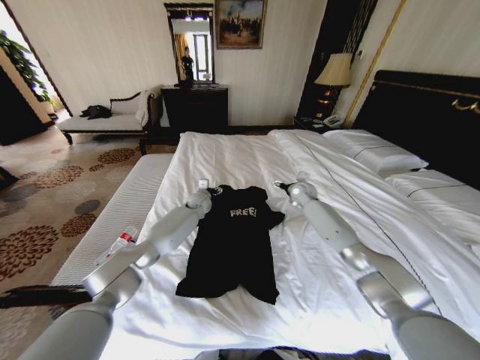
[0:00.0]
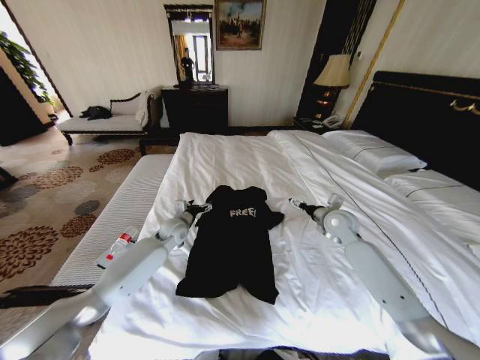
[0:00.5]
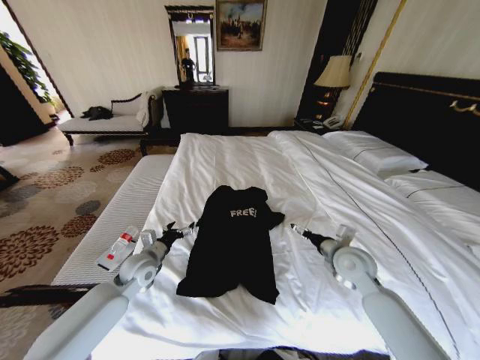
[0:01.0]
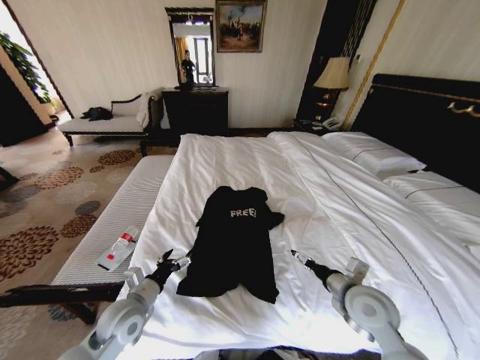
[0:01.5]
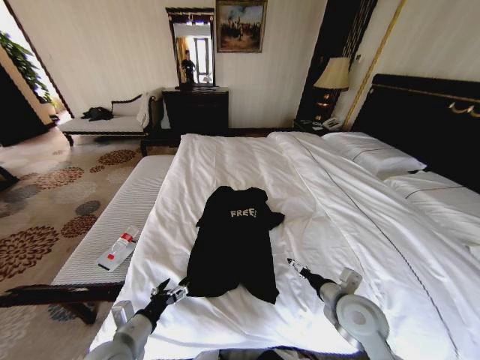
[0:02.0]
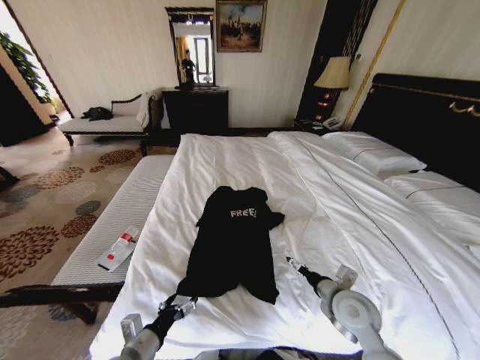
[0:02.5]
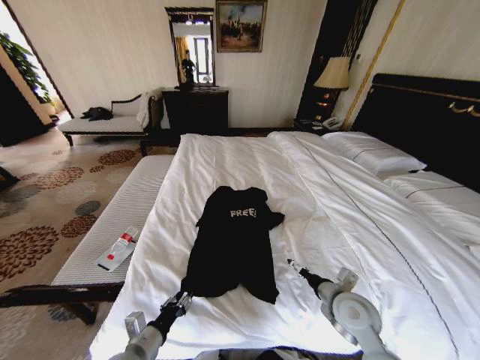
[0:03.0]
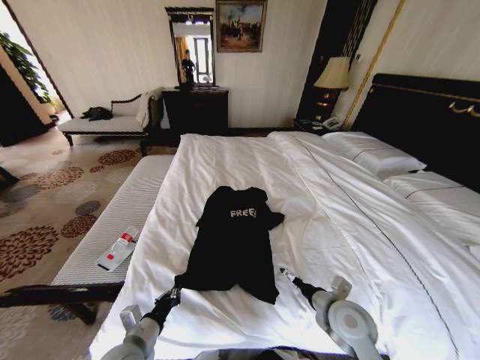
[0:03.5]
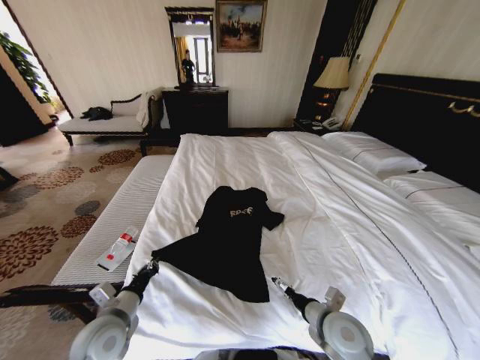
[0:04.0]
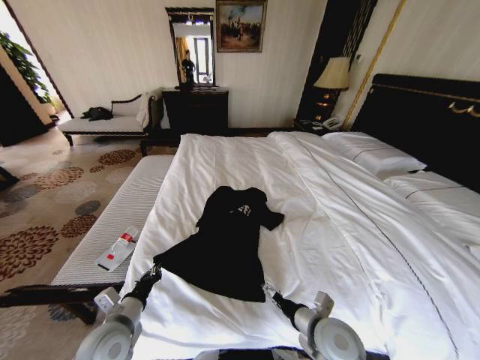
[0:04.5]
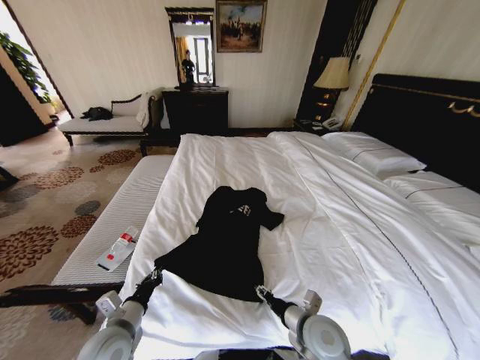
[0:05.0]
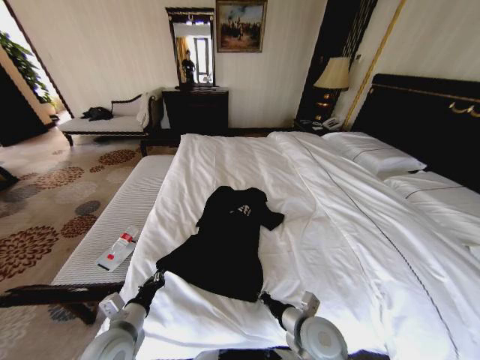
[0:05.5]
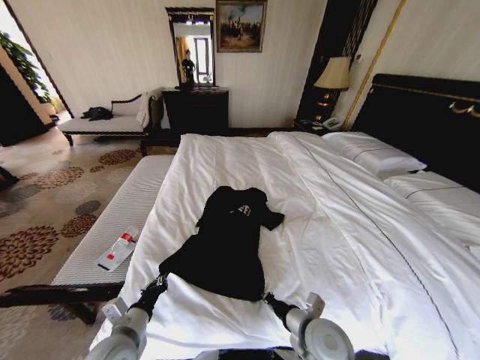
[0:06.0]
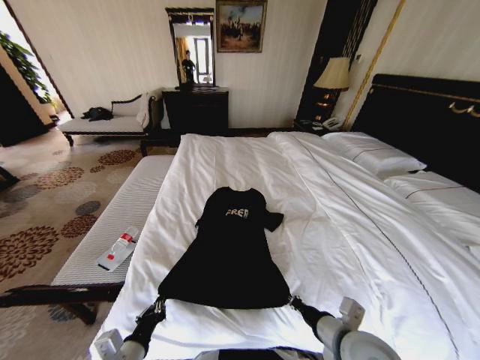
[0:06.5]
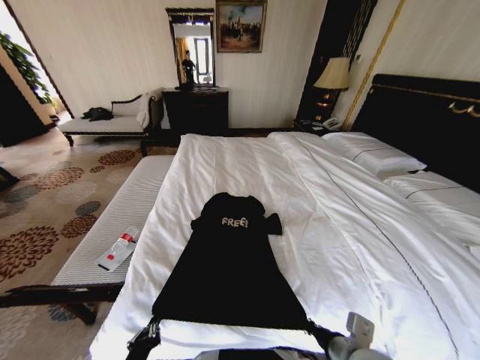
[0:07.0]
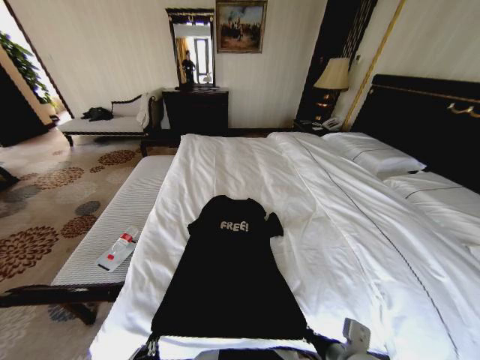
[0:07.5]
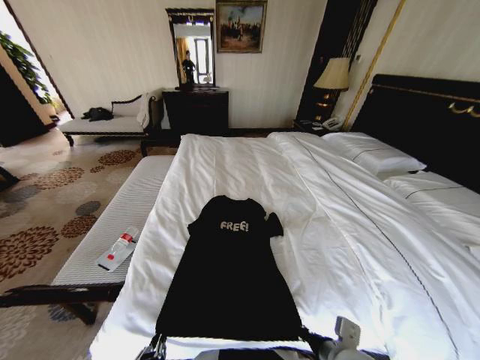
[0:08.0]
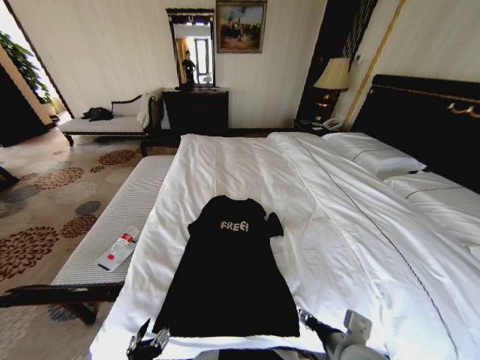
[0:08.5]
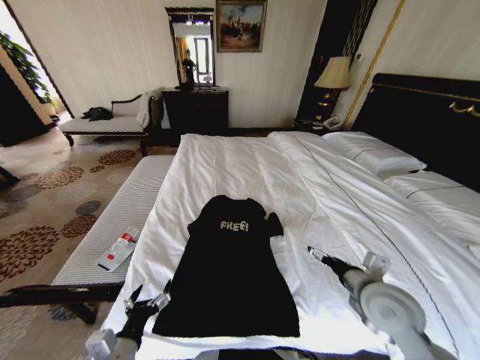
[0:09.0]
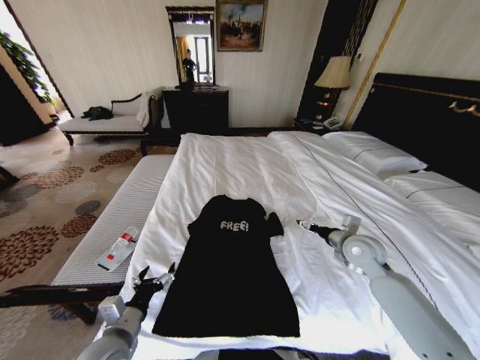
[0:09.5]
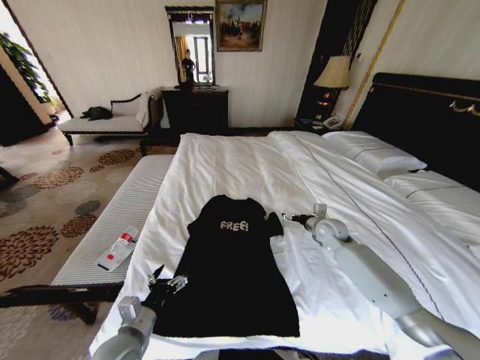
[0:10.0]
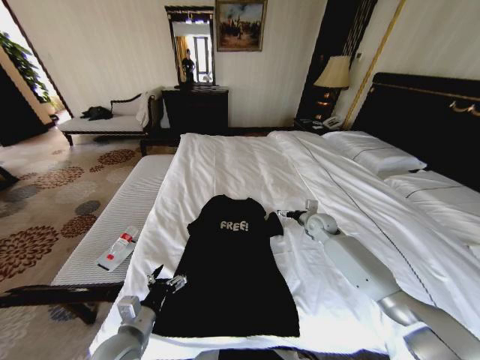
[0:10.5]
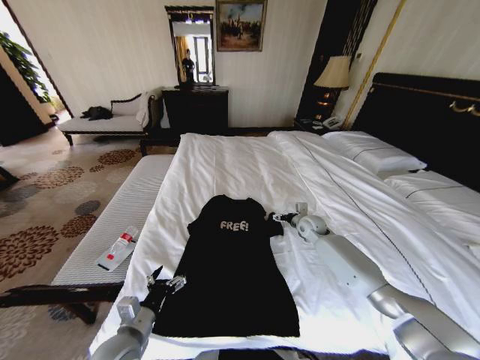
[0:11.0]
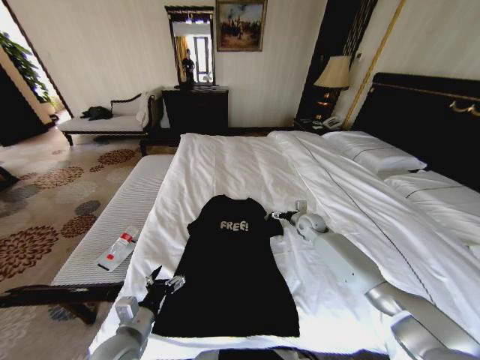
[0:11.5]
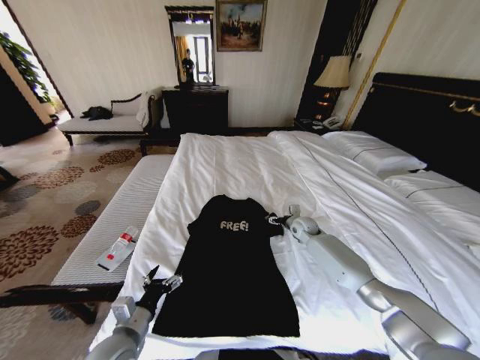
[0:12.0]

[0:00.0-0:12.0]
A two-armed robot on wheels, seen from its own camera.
Task of the whole recording: Fold the clothes on the bed.
0:00.0 to 0:02.0: Both grippers travel together backward, about 40 cm.
0:02.0 to 0:04.0: The right gripper ends up approximately 5 cm from where it was. Meanwhile the left gripper moves roughly 5 cm, and closes its fingers.
0:04.0 to 0:06.0: The right gripper changes place by approximately 5 cm, and closes.
0:06.0 to 0:08.0: The right gripper heads backward, covering approximately 5 cm. The left gripper moves backward, about 15 cm.
0:08.0 to 0:10.0: The right gripper travels forward by some 35 cm, and opens its fingers. Meanwhile the left gripper moves forward, approximately 15 cm, and opens up.
0:10.0 to 0:12.0: The right gripper shifts about 10 cm downward and forward.

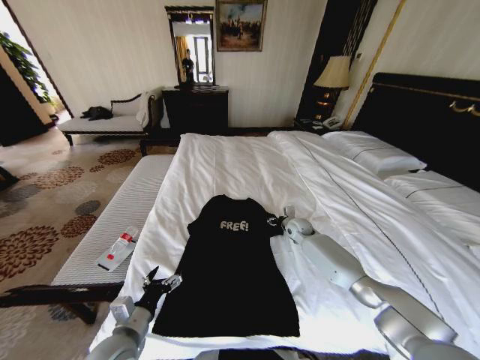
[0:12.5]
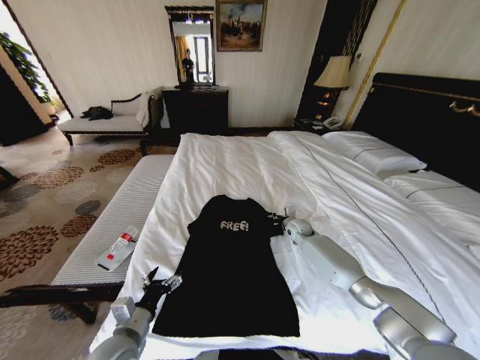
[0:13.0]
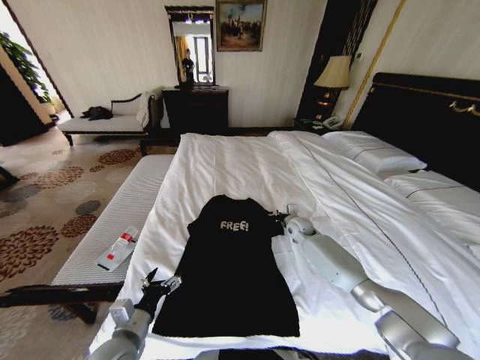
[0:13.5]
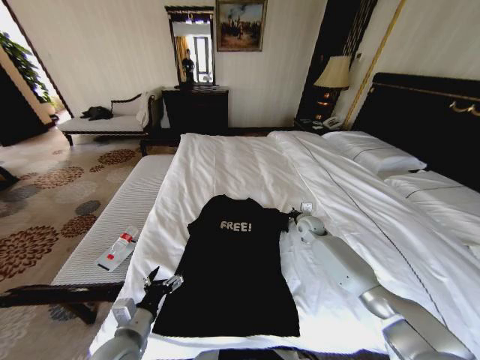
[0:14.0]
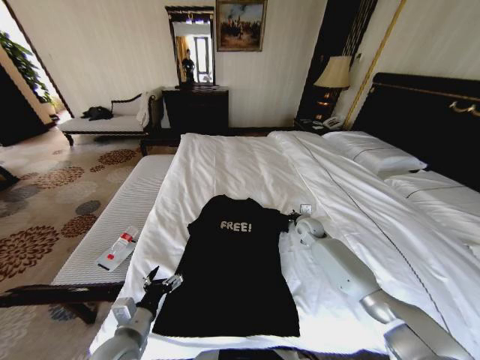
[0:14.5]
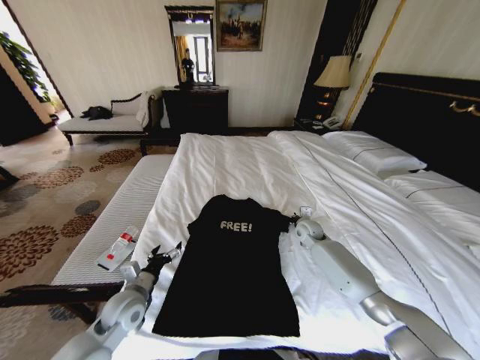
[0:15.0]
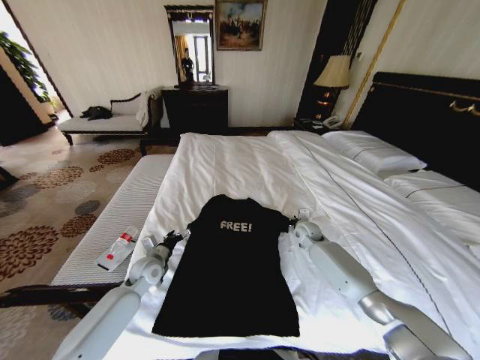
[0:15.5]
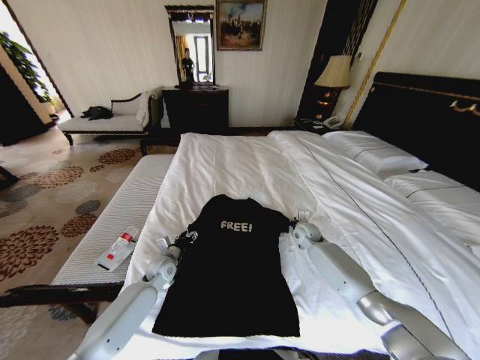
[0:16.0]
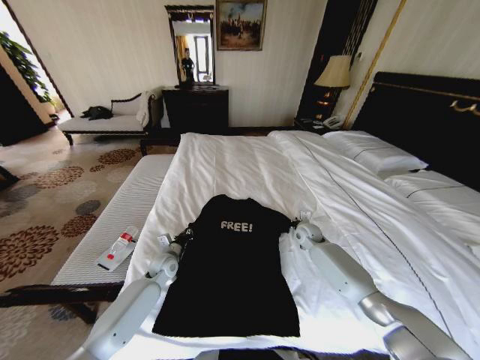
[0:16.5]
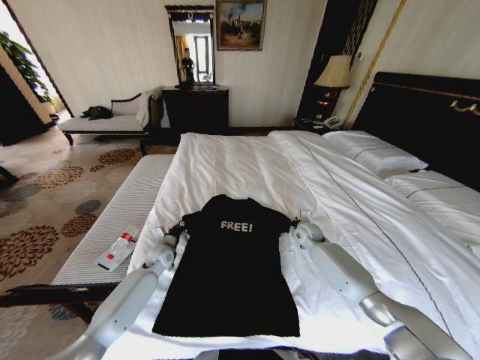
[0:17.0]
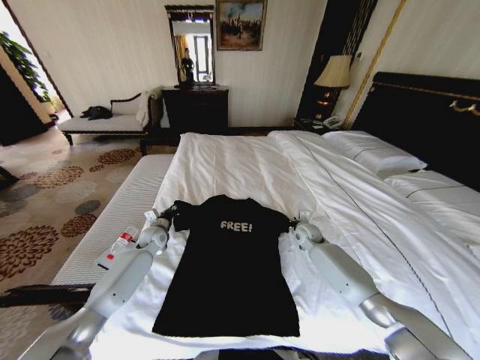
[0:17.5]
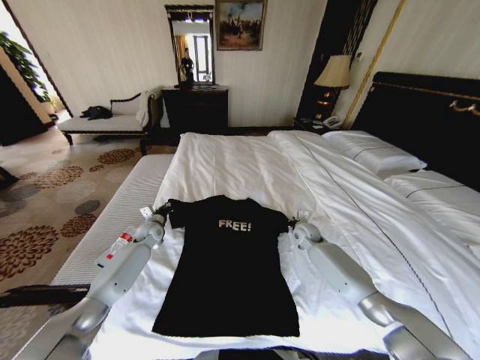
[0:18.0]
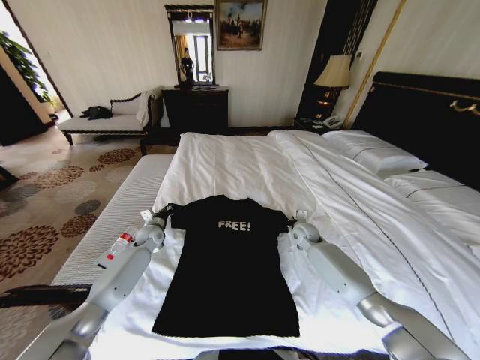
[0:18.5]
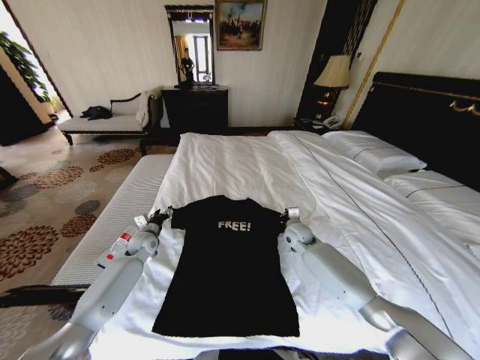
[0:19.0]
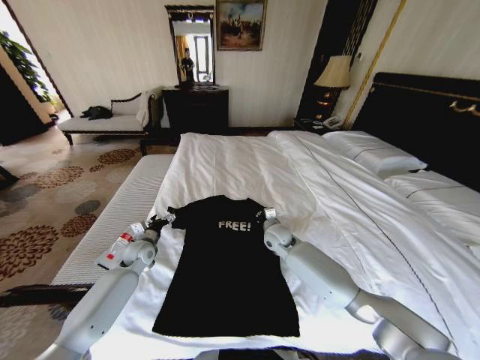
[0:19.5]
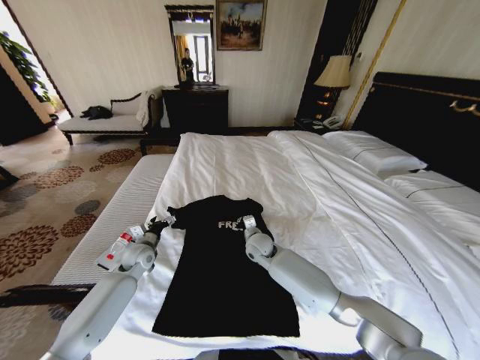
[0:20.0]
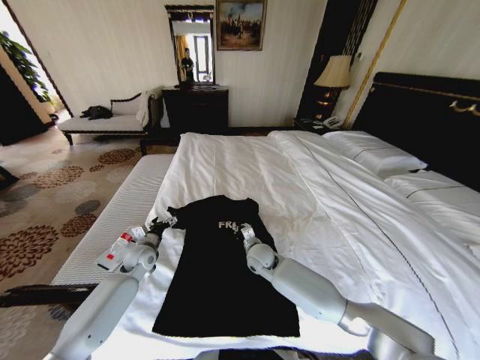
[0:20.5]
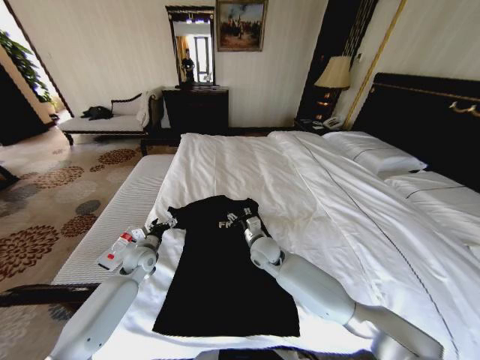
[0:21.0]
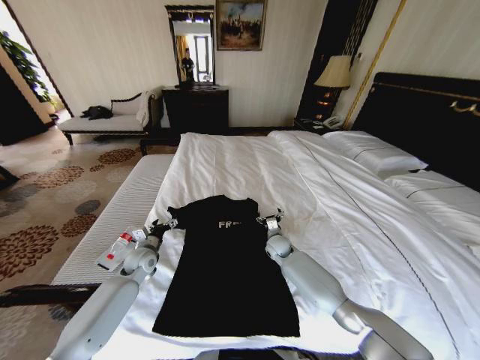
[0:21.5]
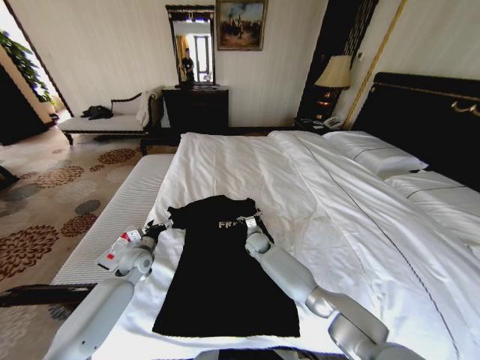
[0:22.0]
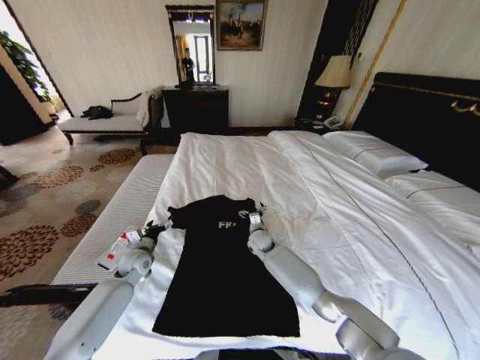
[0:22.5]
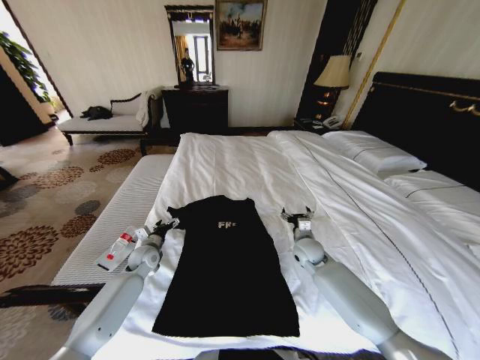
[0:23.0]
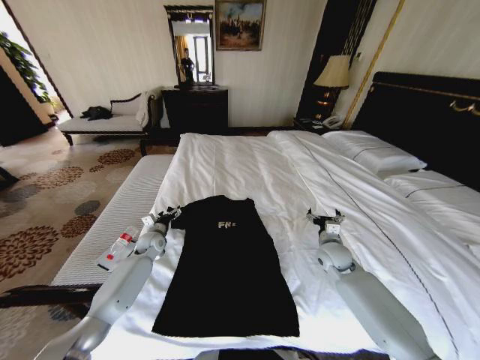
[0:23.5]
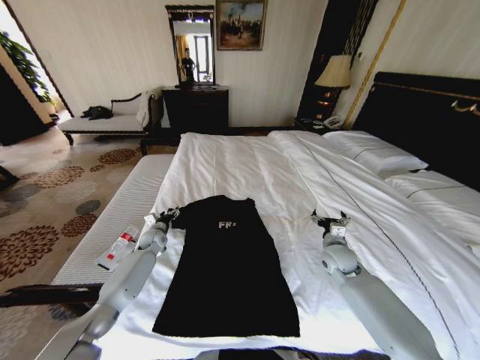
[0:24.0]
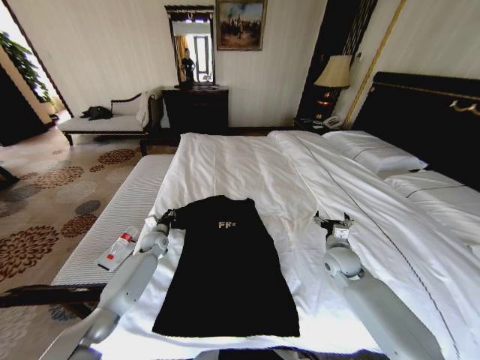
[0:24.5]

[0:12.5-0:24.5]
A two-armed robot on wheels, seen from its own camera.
Task of the whole recording: Fold the clothes on the bed.
0:12.5 to 0:14.5: The right gripper closes up.
0:14.5 to 0:16.5: The left gripper shifts some 25 cm forward, and closes its fingers.
0:16.5 to 0:18.5: The left gripper goes about 15 cm forward and to the left.
0:18.5 to 0:20.5: The left gripper moves backward, about 10 cm, and opens. The right gripper heads to the left and backward, covering roughly 20 cm.
0:20.5 to 0:22.5: The right gripper is displaced forward by roughly 10 cm, moves roughly 5 cm downward and comes back, and opens its fingers.
0:22.5 to 0:24.5: The right gripper heads to the right and backward, covering some 25 cm; the left gripper moves forward, roughly 10 cm, and closes.

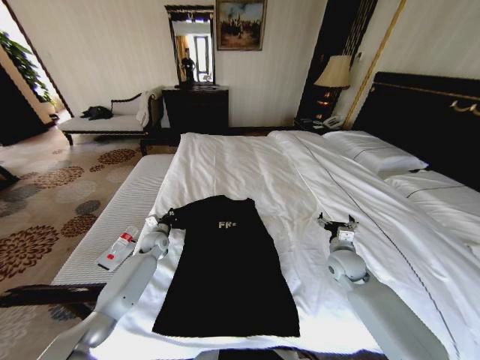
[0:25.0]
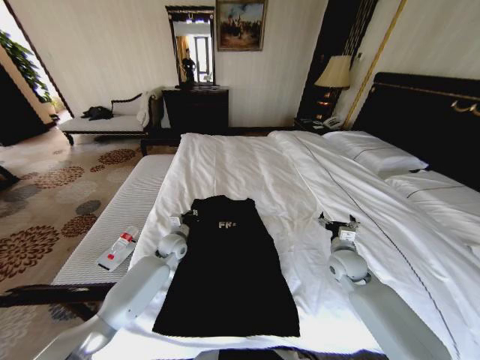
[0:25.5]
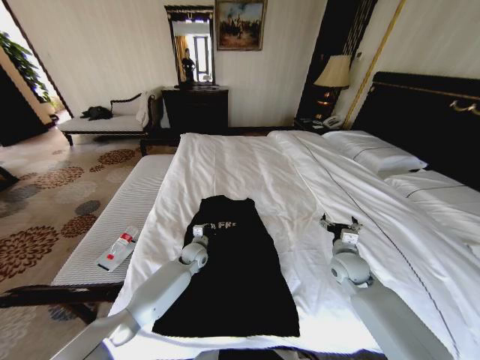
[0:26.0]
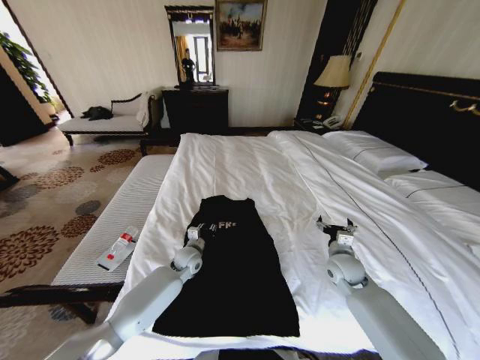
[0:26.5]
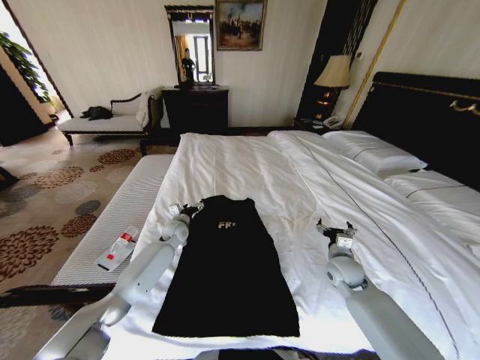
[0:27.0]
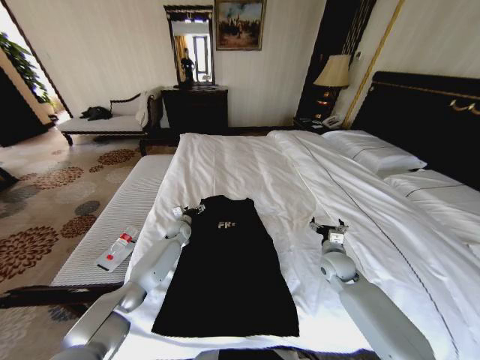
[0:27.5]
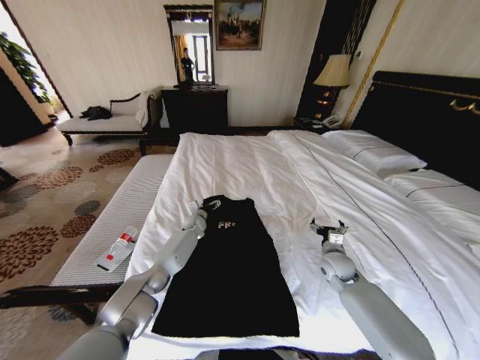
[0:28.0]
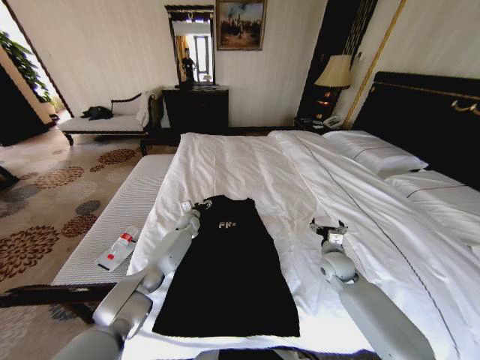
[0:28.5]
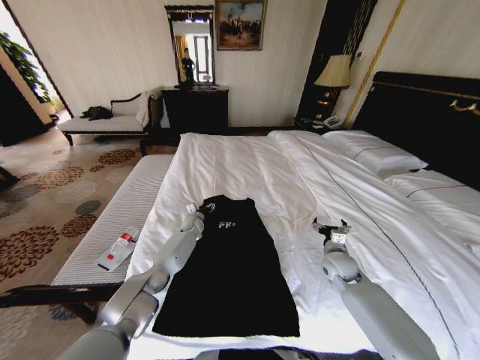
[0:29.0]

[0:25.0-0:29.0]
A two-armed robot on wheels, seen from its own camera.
Task of the whole recording: Fold the clothes on the bed.
0:25.0 to 0:27.0: The left gripper is displaced to the right by some 10 cm, and opens.
0:27.0 to 0:29.0: The left gripper heads forward and downward, covering roughly 10 cm.
